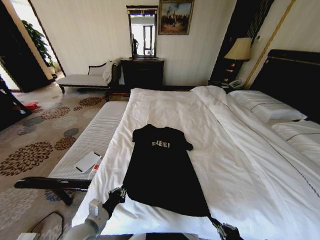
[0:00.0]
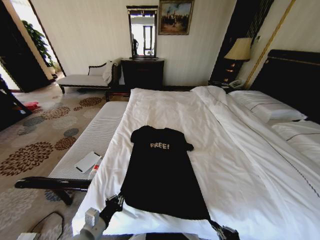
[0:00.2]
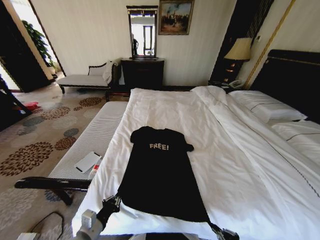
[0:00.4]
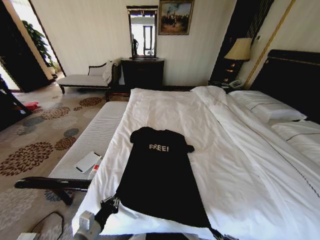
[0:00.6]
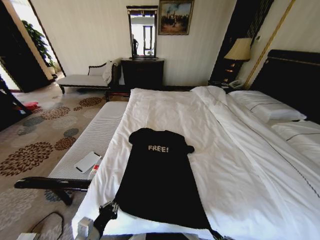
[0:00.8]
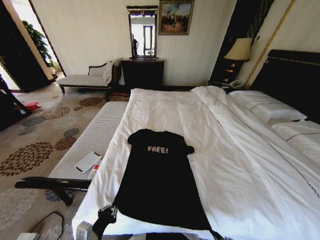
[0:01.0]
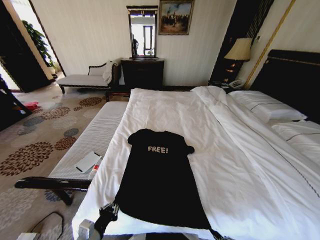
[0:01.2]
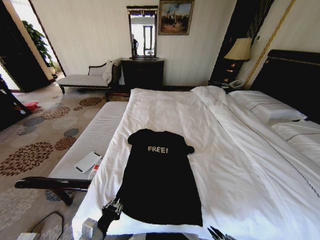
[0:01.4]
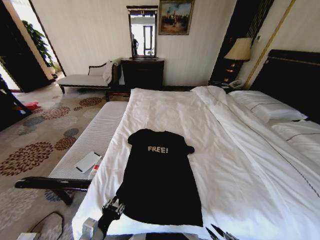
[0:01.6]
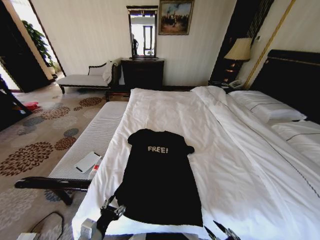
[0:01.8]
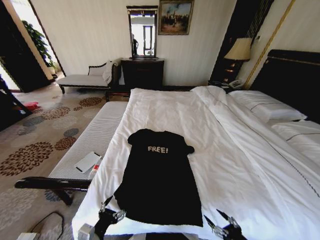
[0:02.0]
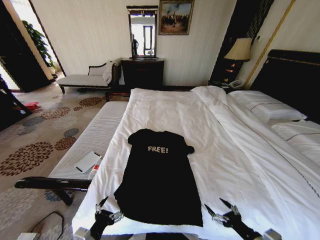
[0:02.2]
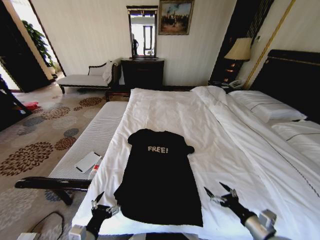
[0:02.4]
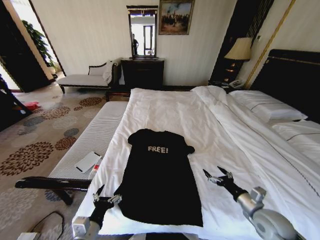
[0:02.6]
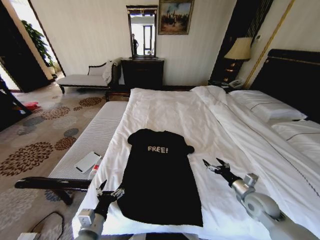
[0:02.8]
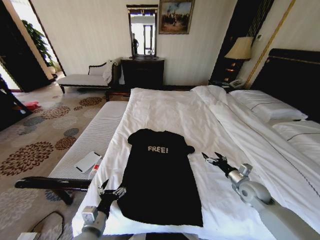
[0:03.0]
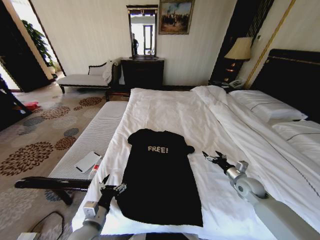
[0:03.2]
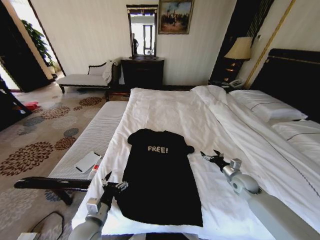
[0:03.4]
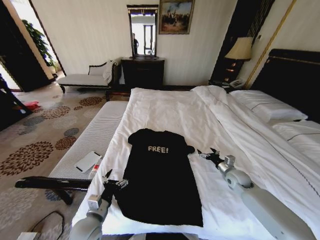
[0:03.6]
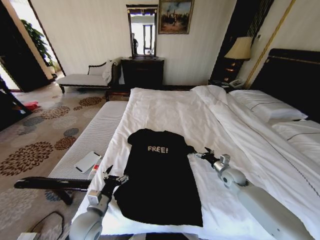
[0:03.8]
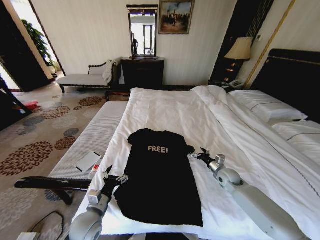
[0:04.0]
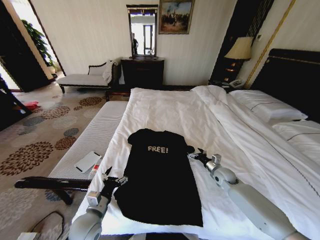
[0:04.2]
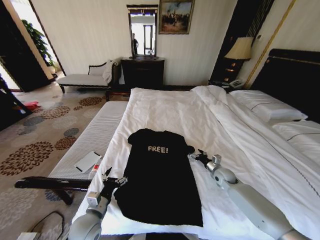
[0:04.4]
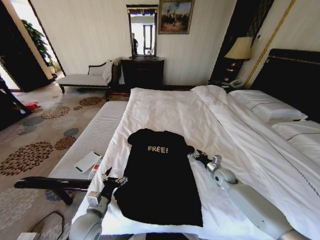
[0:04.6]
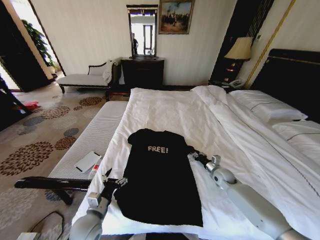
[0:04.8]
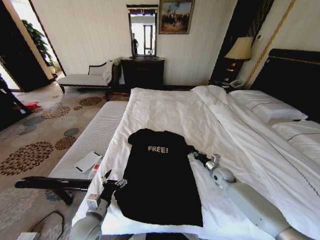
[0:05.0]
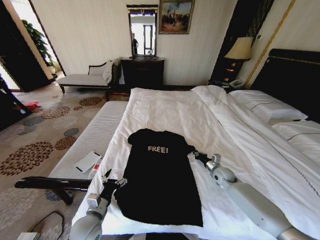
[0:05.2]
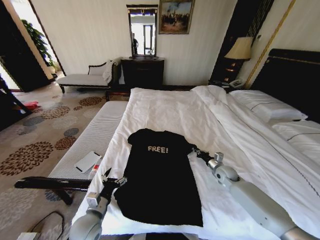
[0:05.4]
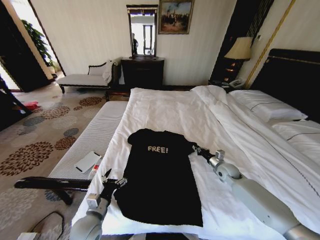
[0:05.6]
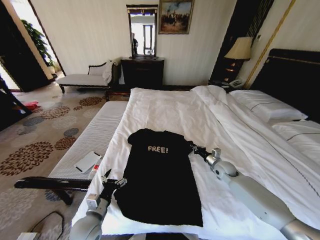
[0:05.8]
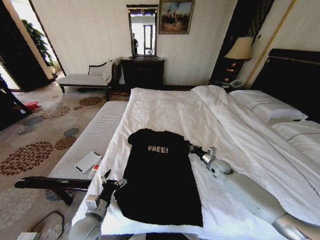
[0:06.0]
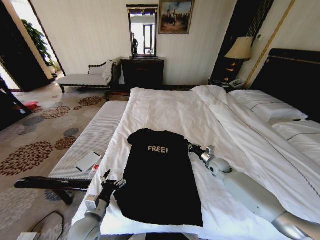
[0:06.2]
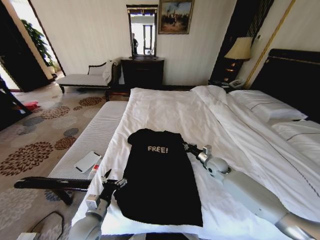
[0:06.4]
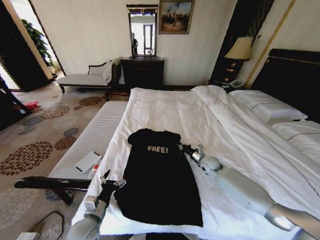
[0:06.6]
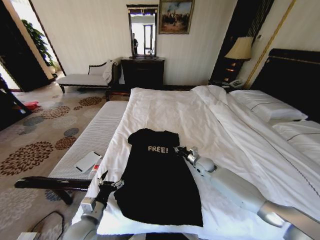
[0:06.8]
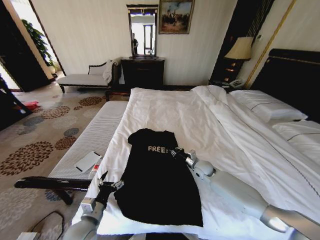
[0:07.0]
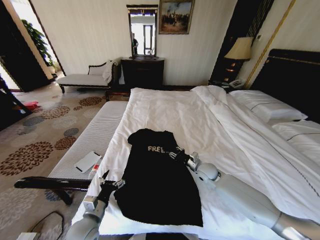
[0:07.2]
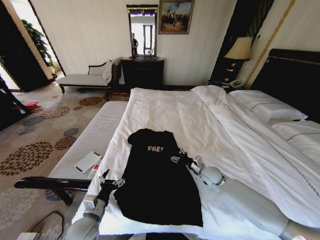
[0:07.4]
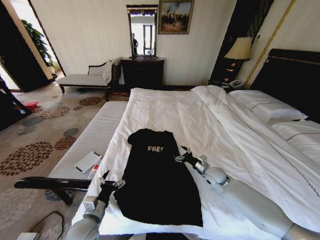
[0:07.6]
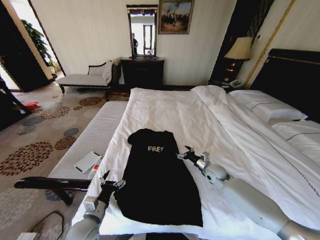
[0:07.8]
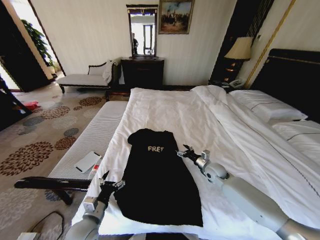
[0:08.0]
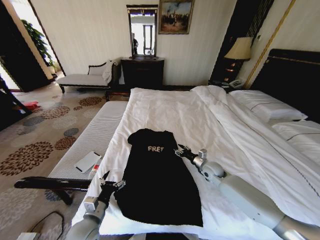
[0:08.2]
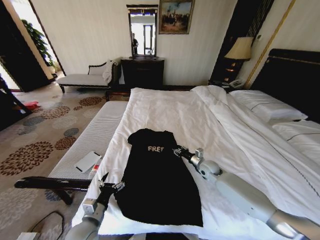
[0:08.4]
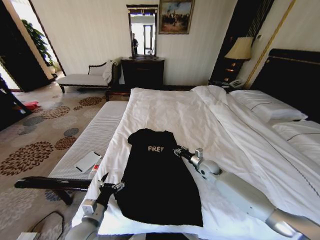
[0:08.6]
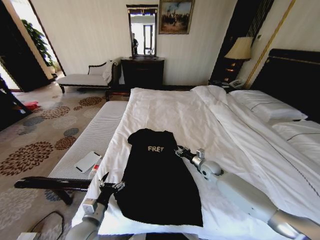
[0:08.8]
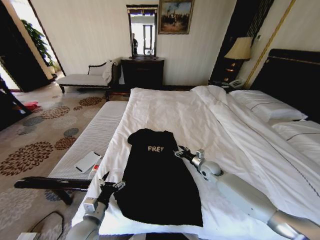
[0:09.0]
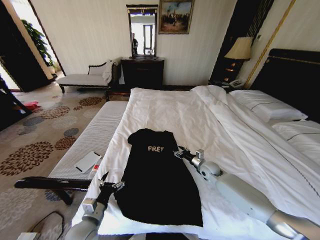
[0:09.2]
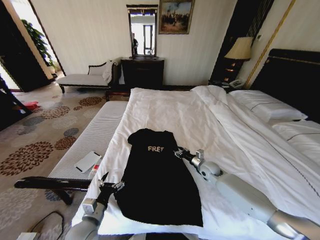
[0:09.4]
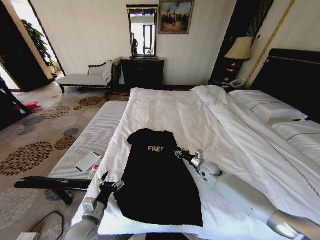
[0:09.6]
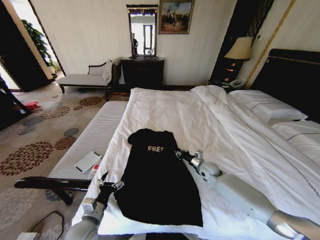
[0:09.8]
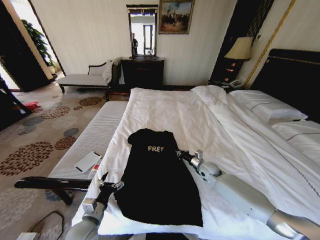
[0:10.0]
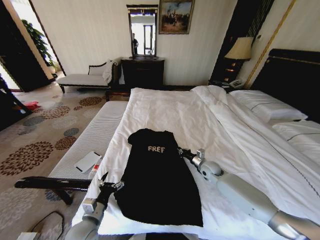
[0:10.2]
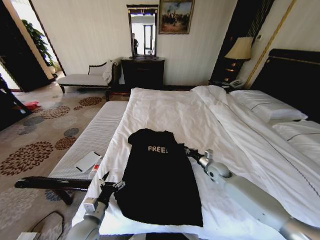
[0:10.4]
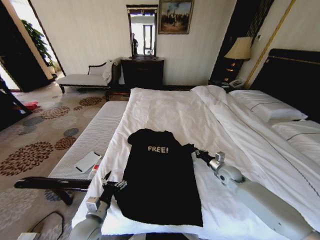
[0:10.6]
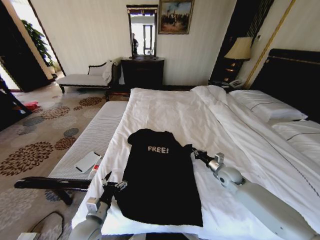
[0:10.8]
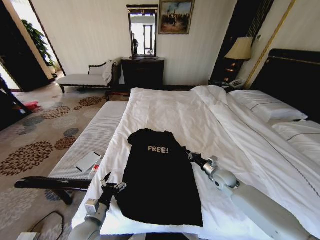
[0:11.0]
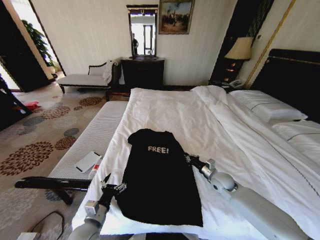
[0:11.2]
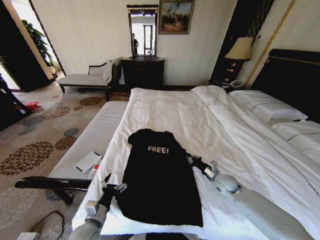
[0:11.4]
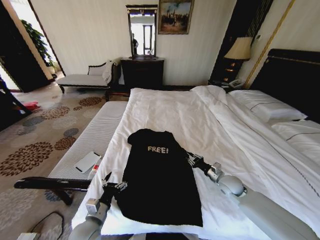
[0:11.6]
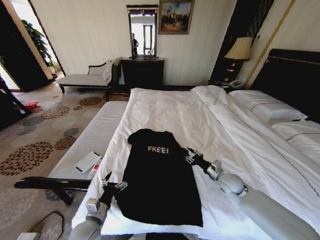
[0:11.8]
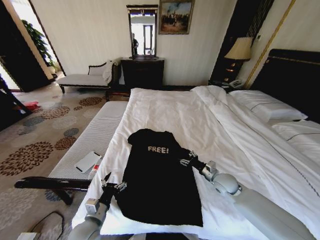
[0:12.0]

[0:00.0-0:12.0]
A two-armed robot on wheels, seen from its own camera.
Task of the whole recording: Fold the clothes on the bed.
0:00.0 to 0:01.6: The left gripper shifts roughly 5 cm backward, and opens up.
0:01.6 to 0:03.0: The left gripper opens its fingers; the right gripper heads forward, covering roughly 30 cm, and opens.
0:03.0 to 0:04.4: The left gripper goes about 5 cm forward, while the right gripper shifts approximately 10 cm forward and downward.
0:04.4 to 0:06.0: The right gripper closes its fingers.
0:06.0 to 0:07.6: The right gripper goes some 5 cm to the left, and opens its fingers.
0:07.6 to 0:09.0: The grippers move only a little.
0:09.0 to 0:10.4: The right gripper closes its fingers.
0:10.4 to 0:12.0: The right gripper is displaced backward by some 5 cm, and opens up.

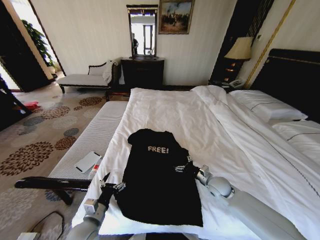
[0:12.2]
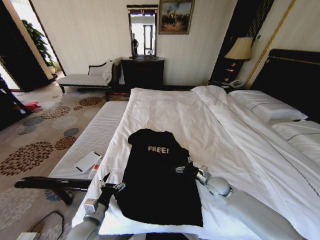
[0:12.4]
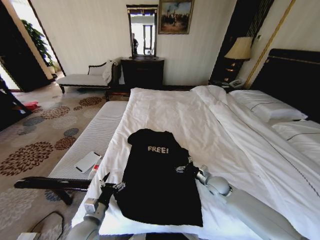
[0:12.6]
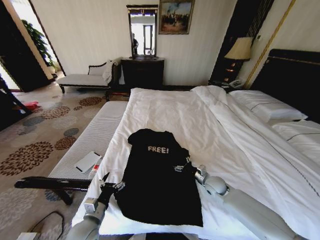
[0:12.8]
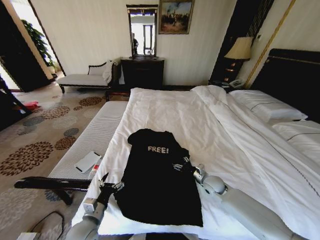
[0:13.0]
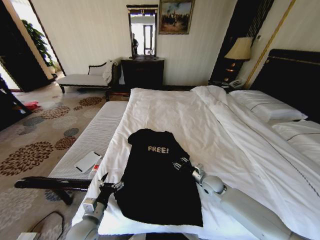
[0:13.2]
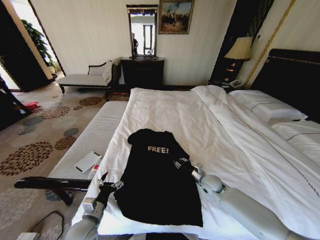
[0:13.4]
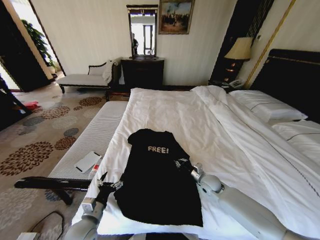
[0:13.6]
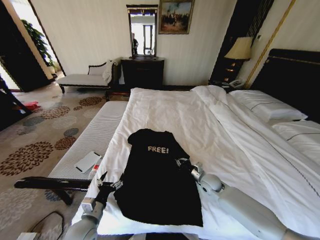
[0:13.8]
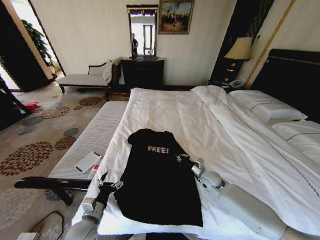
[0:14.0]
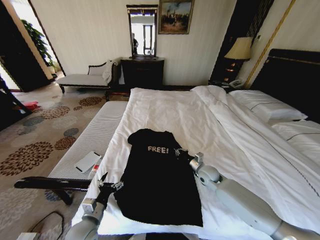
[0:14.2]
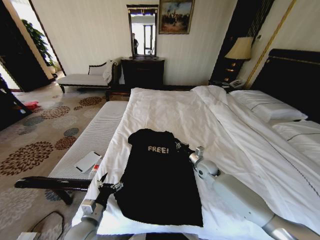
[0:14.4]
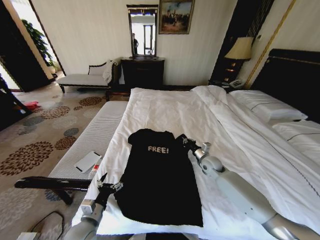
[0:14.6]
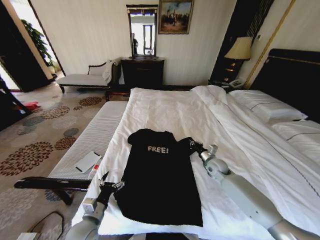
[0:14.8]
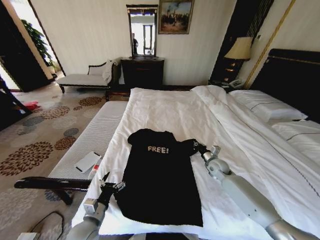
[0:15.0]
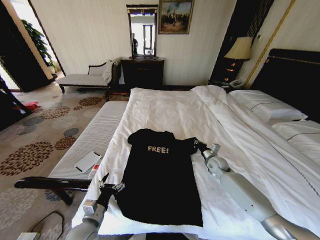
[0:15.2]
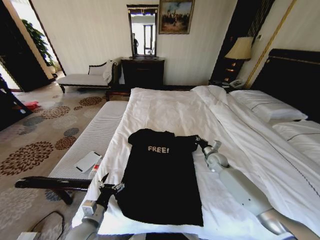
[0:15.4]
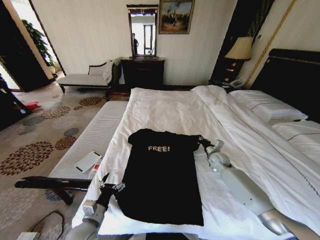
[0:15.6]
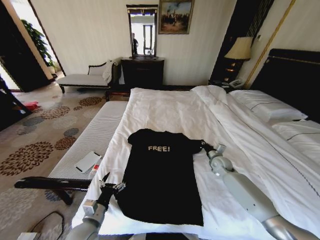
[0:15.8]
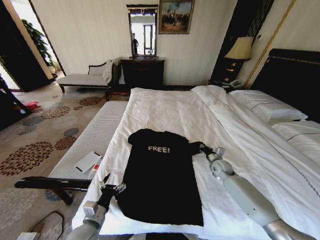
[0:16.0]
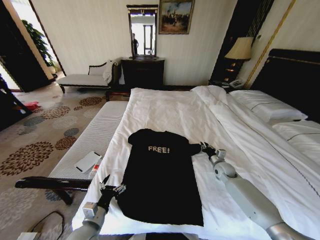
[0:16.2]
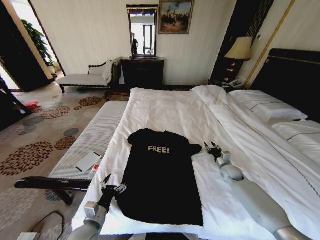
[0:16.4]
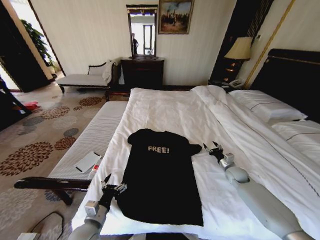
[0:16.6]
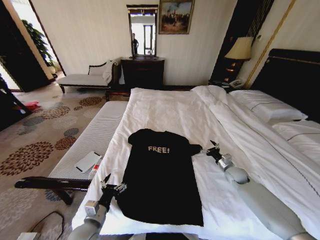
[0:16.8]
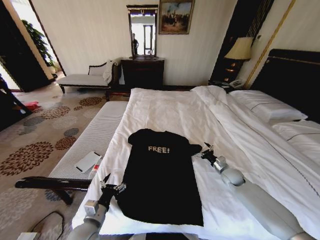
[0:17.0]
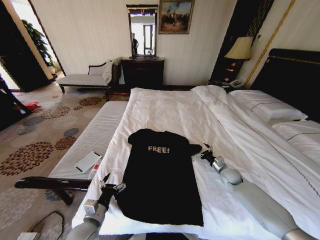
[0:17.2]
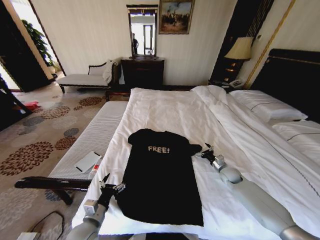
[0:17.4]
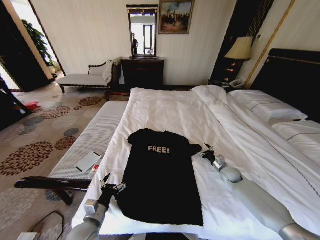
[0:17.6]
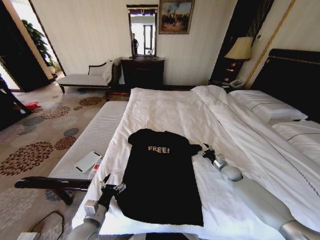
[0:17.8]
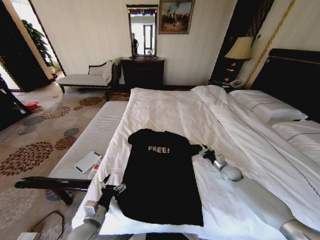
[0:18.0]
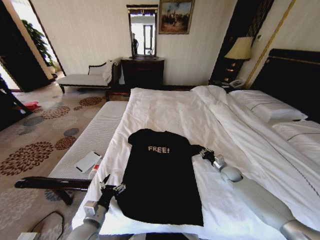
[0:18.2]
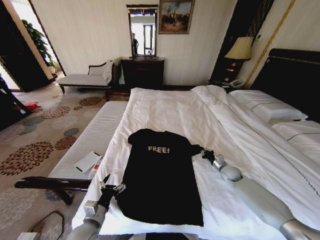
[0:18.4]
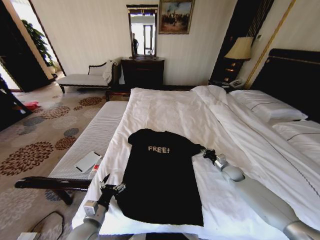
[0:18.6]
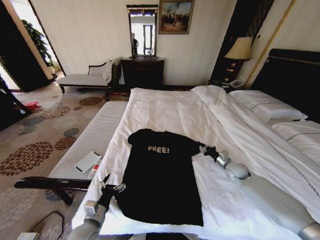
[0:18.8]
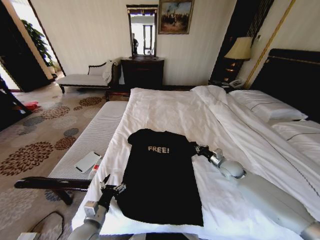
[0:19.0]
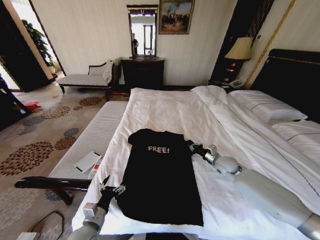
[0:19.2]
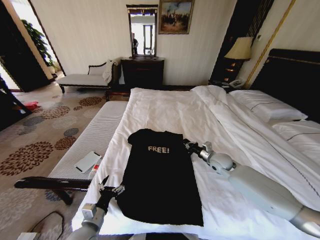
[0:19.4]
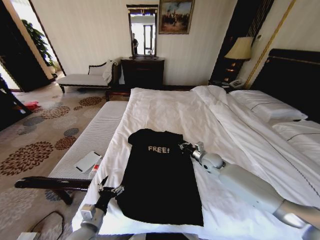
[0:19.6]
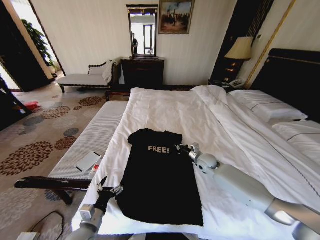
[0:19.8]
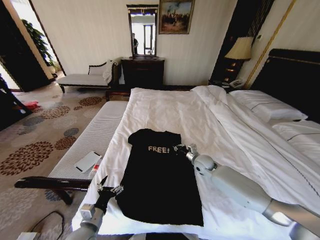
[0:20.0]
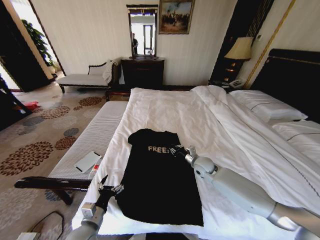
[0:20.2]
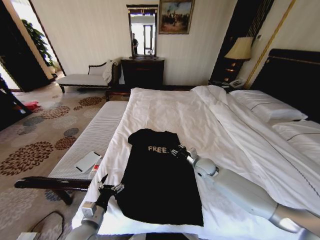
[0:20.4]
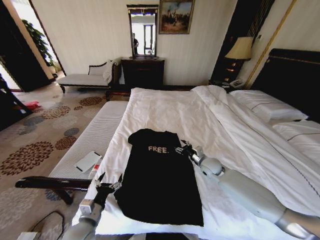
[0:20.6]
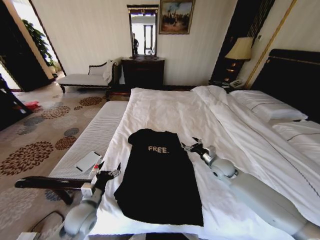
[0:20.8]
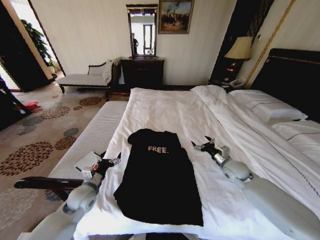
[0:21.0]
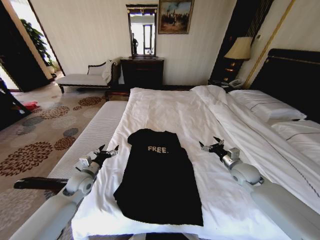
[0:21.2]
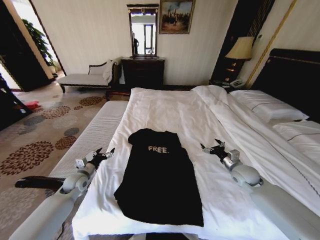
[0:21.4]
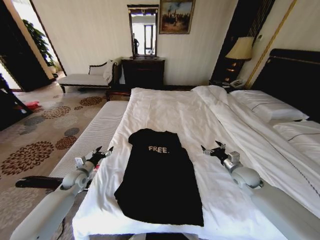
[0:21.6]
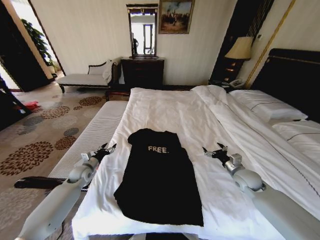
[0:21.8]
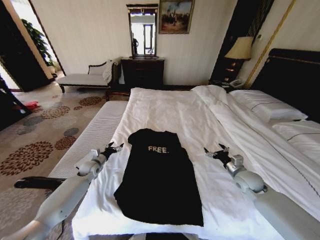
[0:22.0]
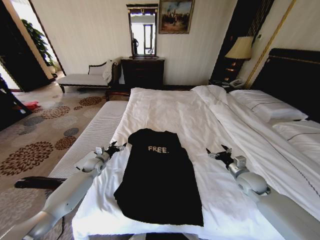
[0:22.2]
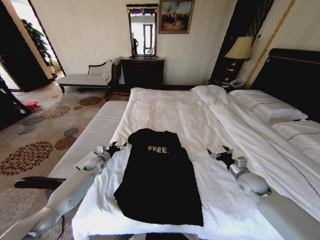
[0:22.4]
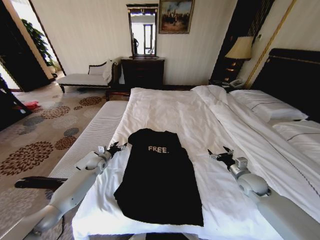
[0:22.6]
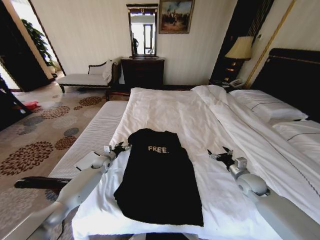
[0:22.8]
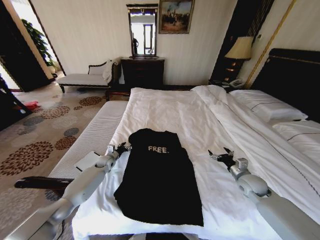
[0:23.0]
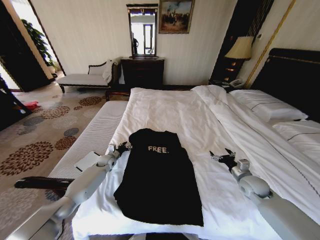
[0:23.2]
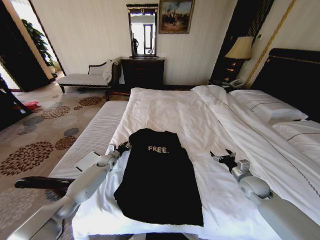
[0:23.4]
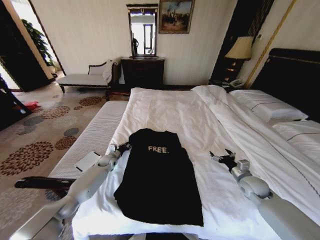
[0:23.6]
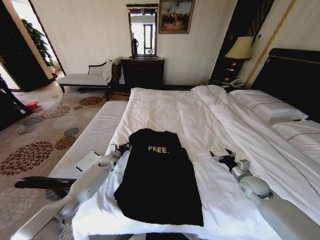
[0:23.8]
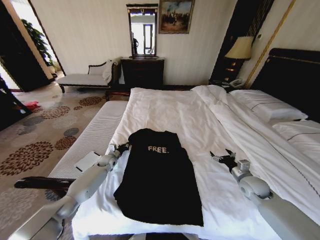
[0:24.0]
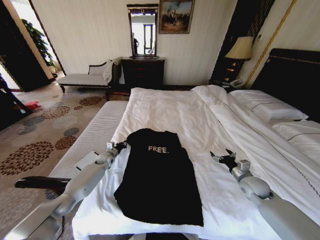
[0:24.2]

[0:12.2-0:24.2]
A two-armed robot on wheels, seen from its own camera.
Task of the whole recording: Fold the clothes on the bed.
0:12.2 to 0:13.8: The right gripper closes.
0:13.8 to 0:15.2: The right gripper goes about 10 cm forward and to the right.
0:15.2 to 0:16.6: The right gripper shifts about 10 cm to the right, and opens its fingers.
0:16.6 to 0:18.2: The right gripper closes.
0:18.2 to 0:19.8: The right gripper heads to the left and upward, covering approximately 15 cm.
0:19.8 to 0:21.2: The left gripper travels forward by about 20 cm, while the right gripper goes roughly 15 cm to the right and backward, and opens.
0:21.2 to 0:22.6: The right gripper changes place by some 5 cm, while the left gripper heads forward and downward, covering roughly 15 cm.
0:22.6 to 0:24.2: The left gripper changes place by roughly 5 cm, and closes its fingers.
